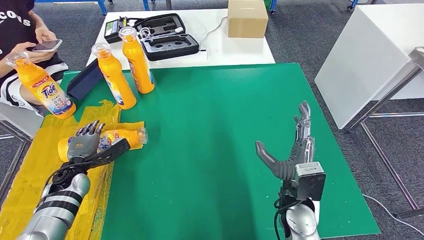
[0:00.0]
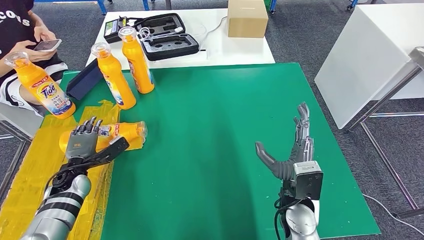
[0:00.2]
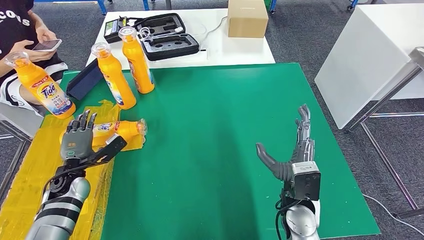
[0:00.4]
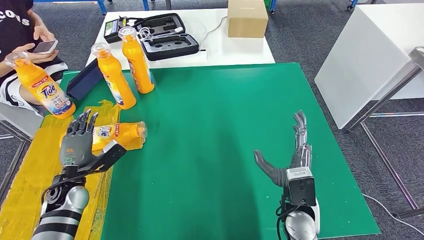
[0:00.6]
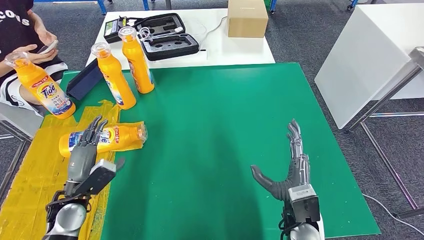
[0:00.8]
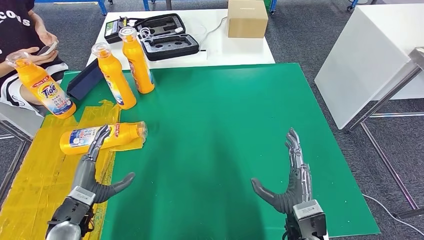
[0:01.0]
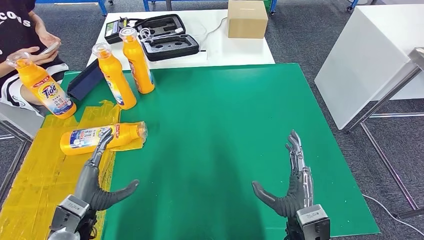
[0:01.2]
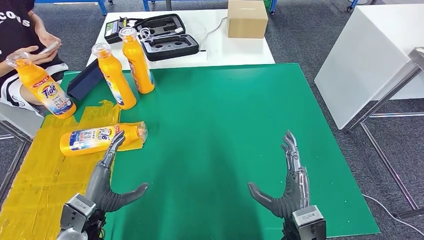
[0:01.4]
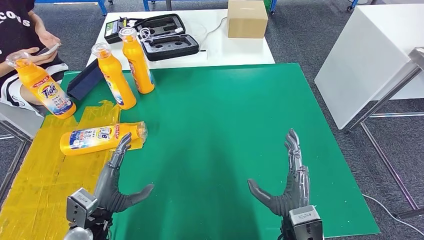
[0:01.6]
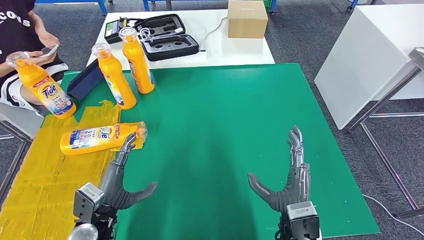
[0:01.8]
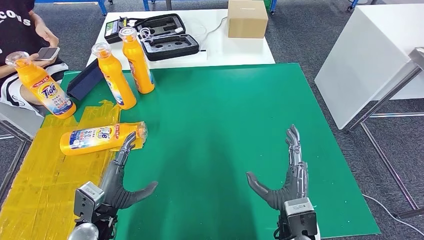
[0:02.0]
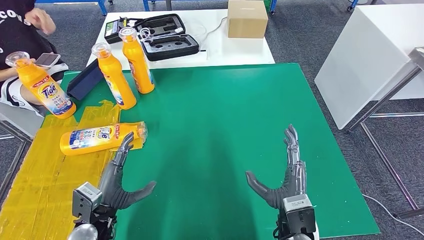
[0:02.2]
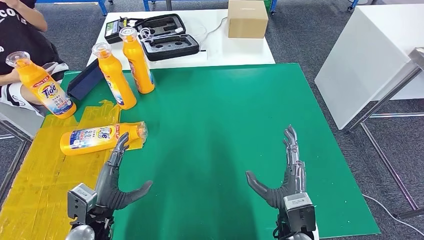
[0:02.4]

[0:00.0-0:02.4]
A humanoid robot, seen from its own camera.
Step, 0:00.0 to 0:02.4: Flip the fast-moving consumer goods bottle to the front side.
0:00.0 to 0:01.2: The right hand goes approximately 5 cm backward. The left hand moves backward and to the right, some 15 cm.
0:01.2 to 0:02.4: The hands stay close to where they were, moving slightly.
